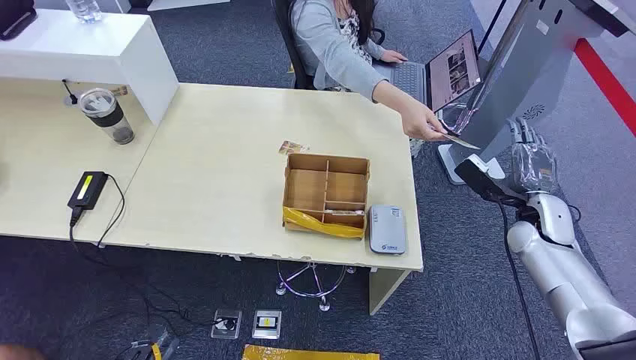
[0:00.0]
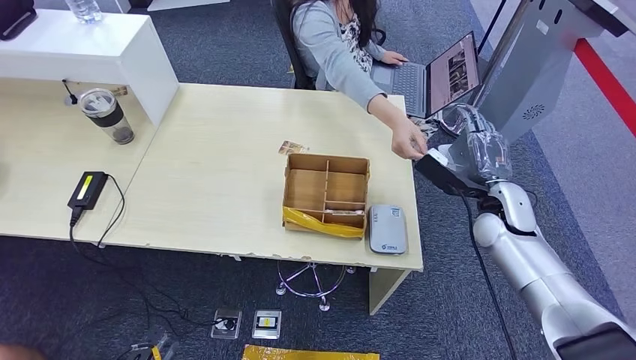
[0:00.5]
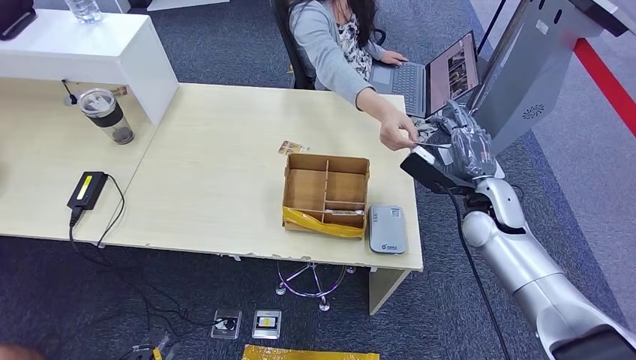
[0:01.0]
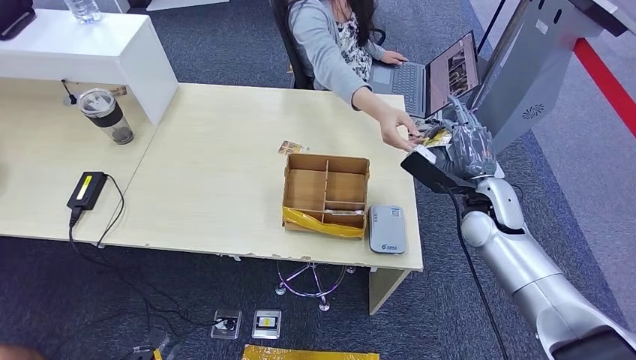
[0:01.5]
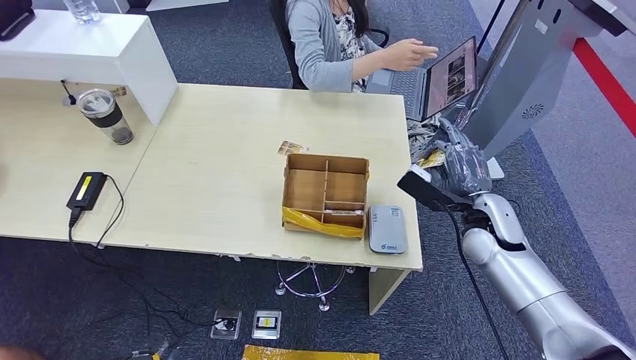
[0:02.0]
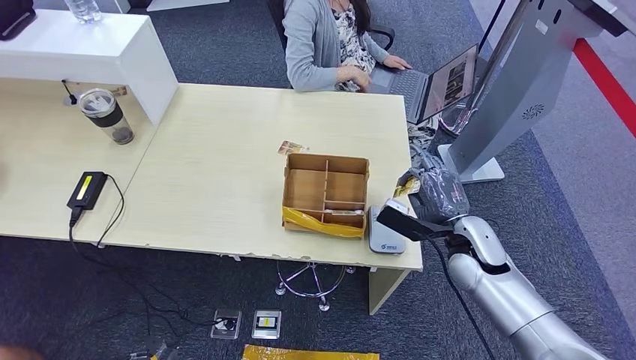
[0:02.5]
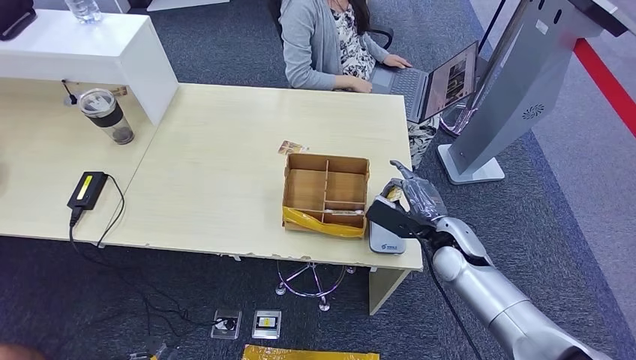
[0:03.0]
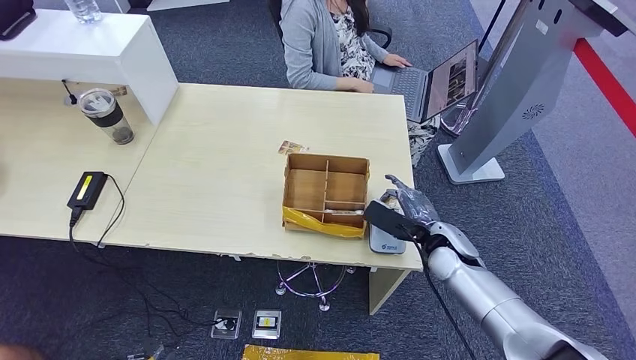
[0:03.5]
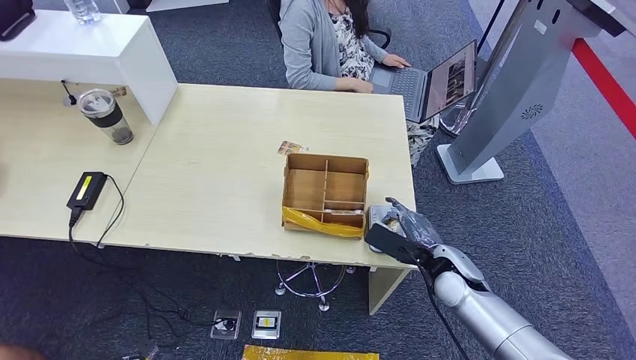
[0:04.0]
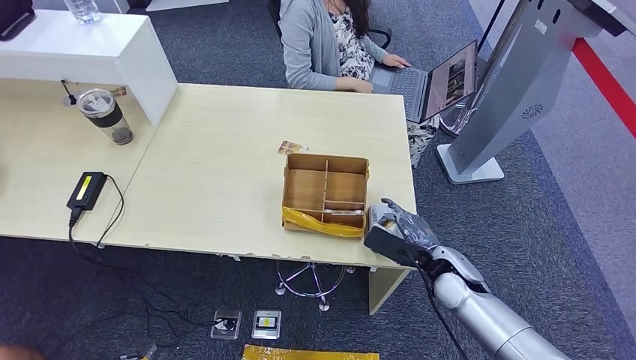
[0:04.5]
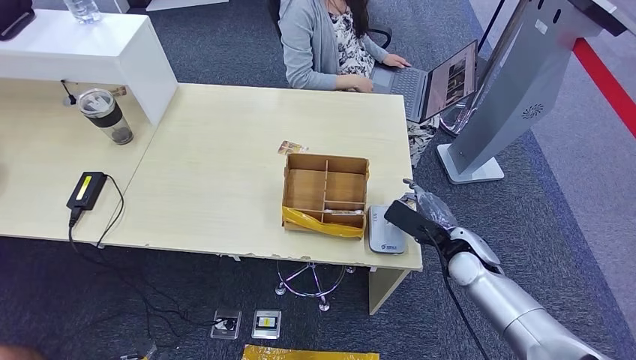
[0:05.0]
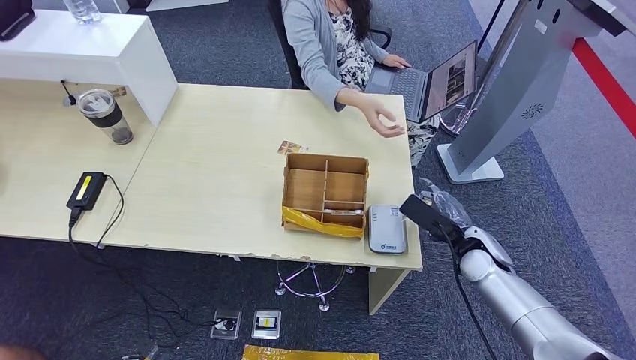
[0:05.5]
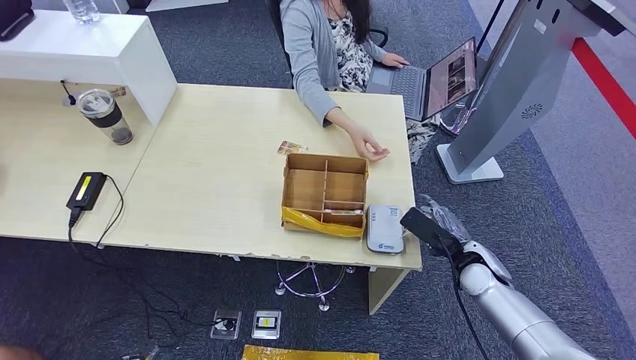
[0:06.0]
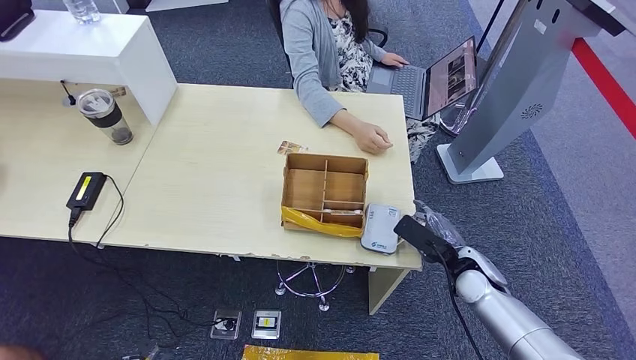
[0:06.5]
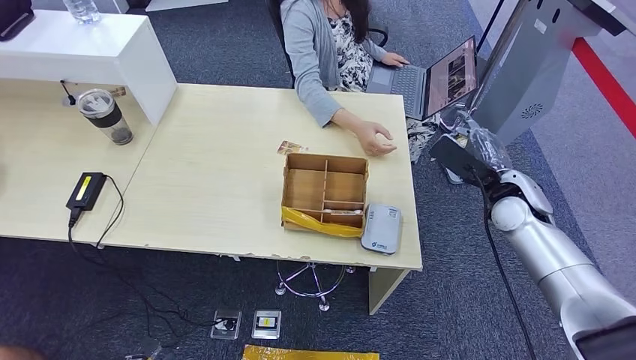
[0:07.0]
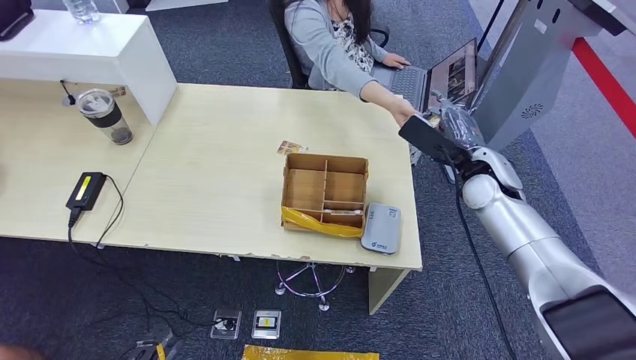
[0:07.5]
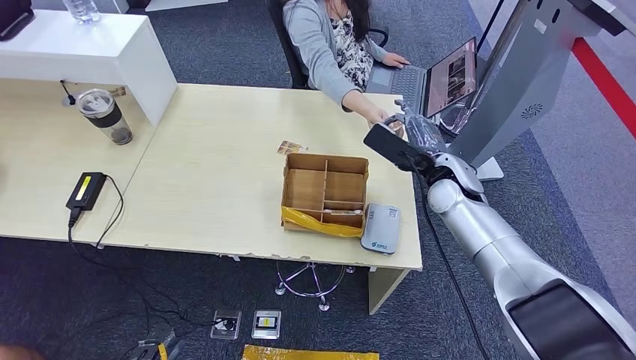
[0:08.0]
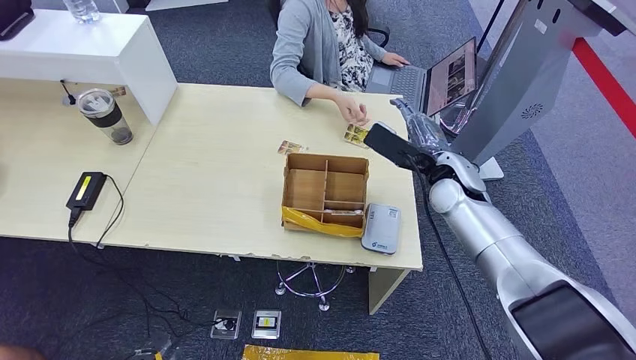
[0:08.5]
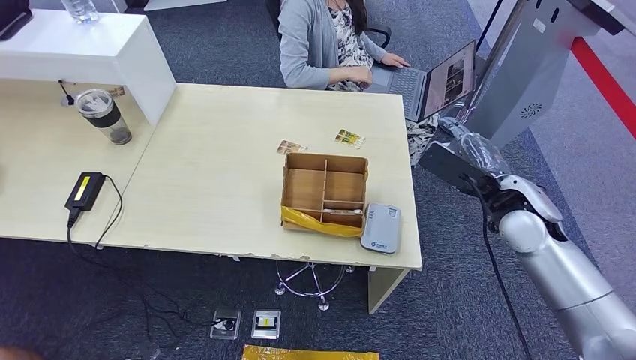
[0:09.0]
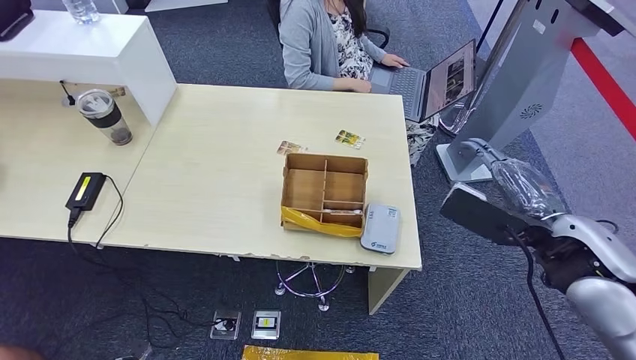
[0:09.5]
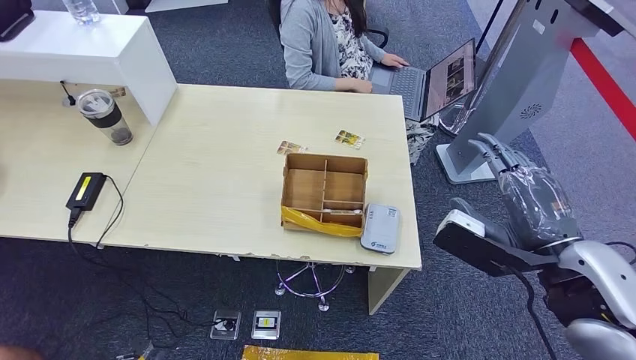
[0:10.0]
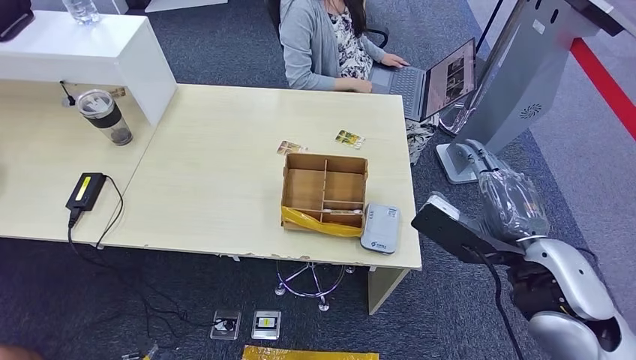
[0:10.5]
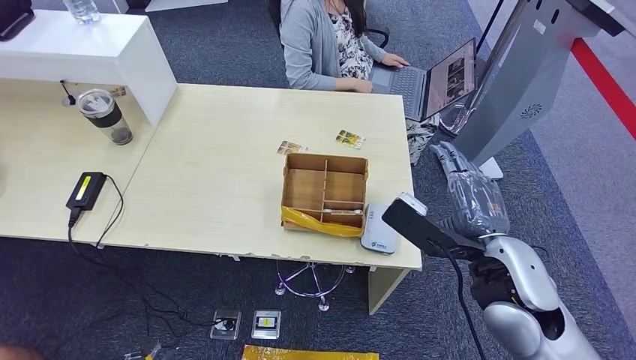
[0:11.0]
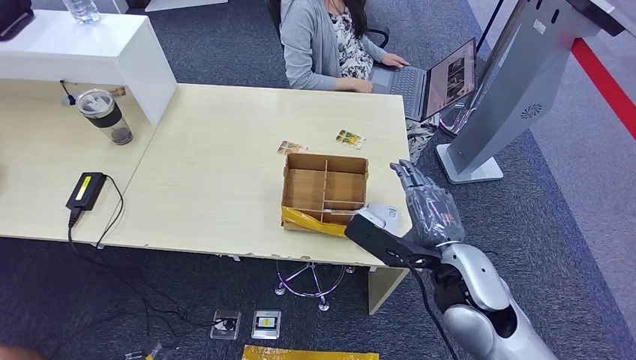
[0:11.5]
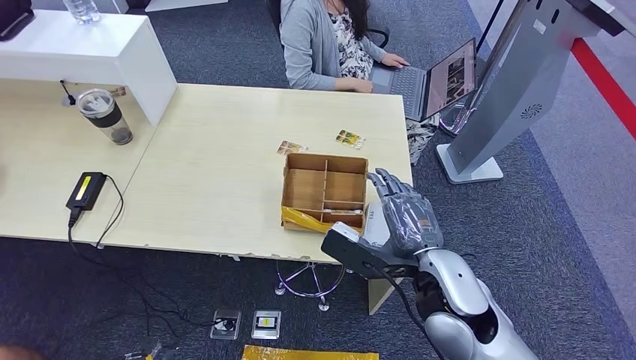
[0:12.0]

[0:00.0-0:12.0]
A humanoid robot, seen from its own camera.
Step, 0:00.0 to 0:01.5: Take the ID card from the person's hand.
Step, 0:02.5 to 0:03.5: Place the ID card on the card reader.
Step, 0:07.0 to 0:08.0: Hand the ID card to the person.
0:02.0 to 0:04.0: The right hand travels downward by about 10 cm.
0:04.0 to 0:06.0: The right hand heads to the right, covering approximately 5 cm.
0:06.0 to 0:08.0: The right hand shifts about 20 cm upward, forward and to the left.
0:08.0 to 0:10.0: The right hand travels backward and upward by about 20 cm.
0:10.0 to 0:12.0: The right hand is displaced to the left and downward by about 15 cm.

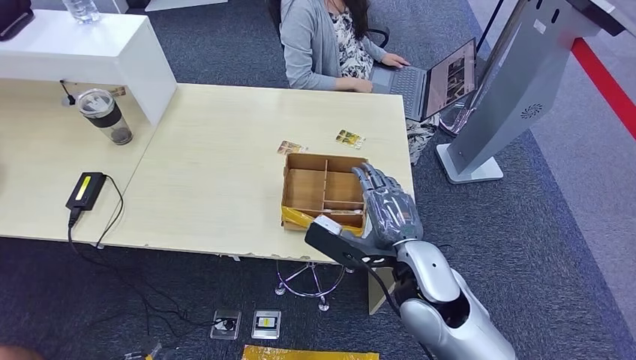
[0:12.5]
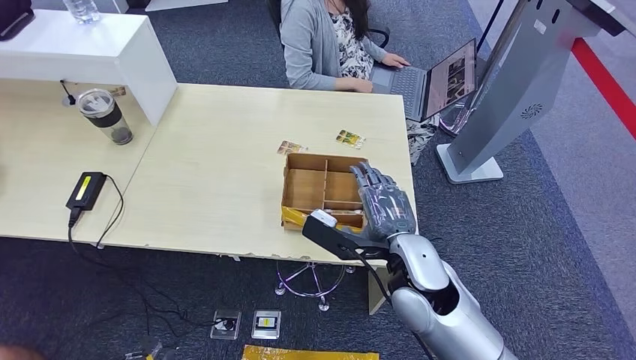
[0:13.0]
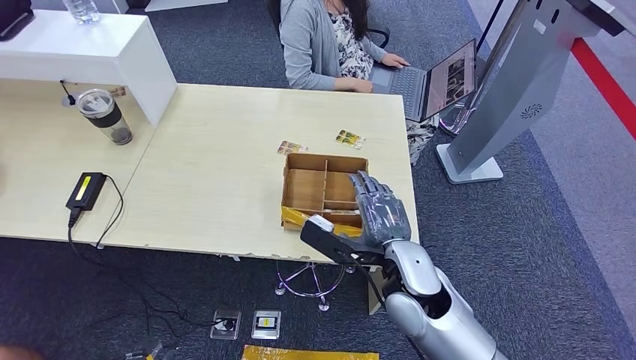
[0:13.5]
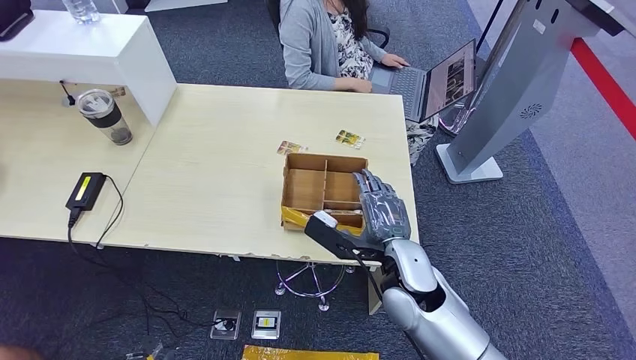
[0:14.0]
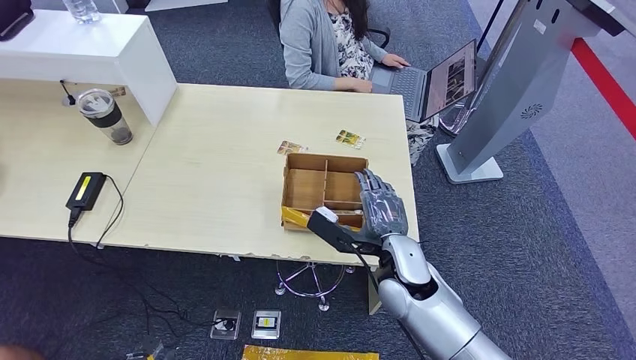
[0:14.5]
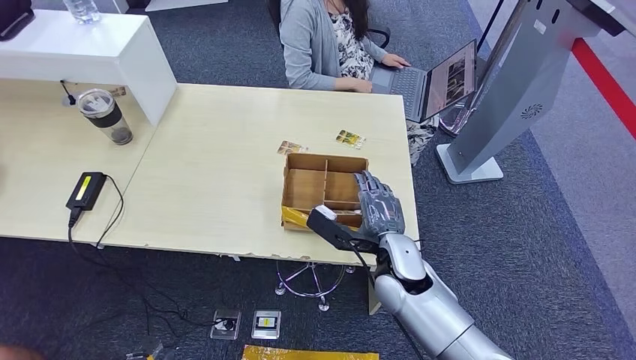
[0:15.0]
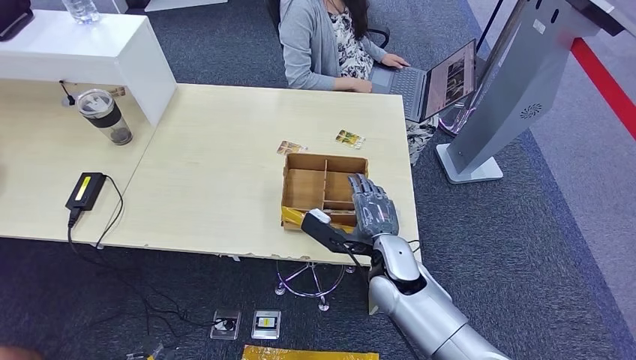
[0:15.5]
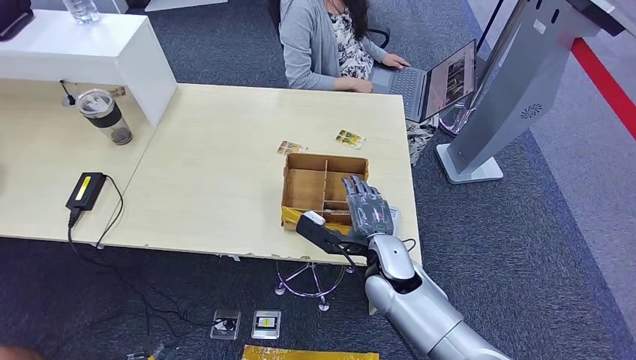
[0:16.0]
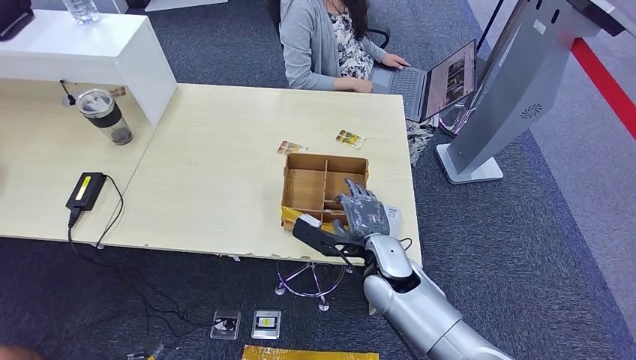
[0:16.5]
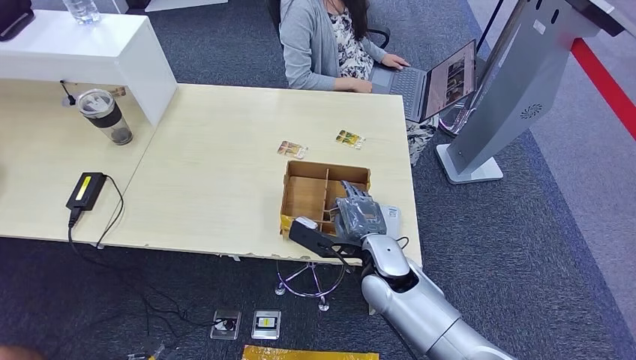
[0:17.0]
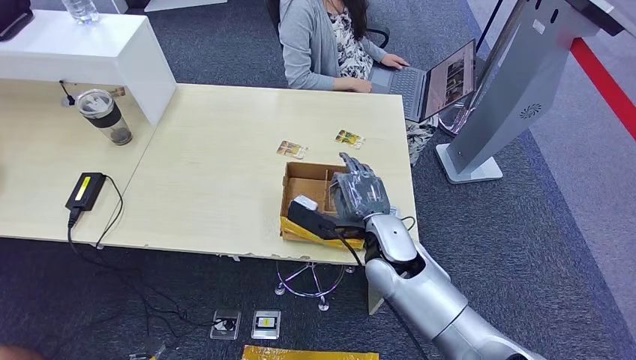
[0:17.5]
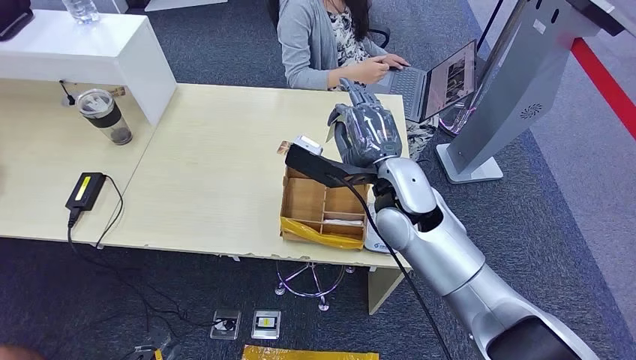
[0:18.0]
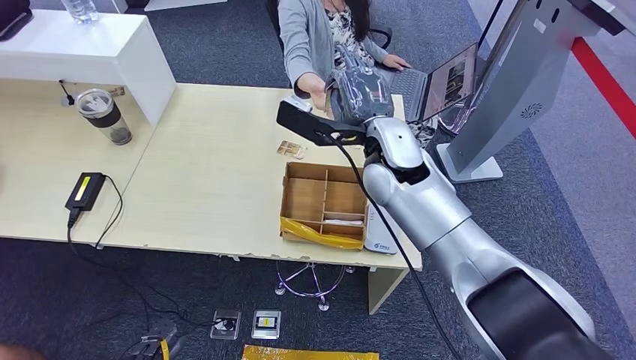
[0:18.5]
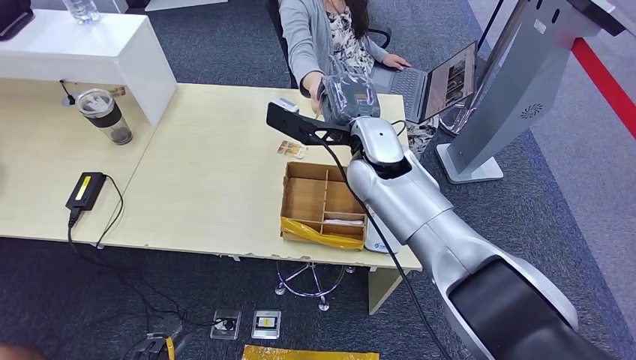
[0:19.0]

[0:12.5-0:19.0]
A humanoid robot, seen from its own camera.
Step, 0:16.5 to 0:17.0: Pick up the room key from the key card box.
Step, 0:18.0 to 0:19.0: Hand the room key to the person.
0:12.5 to 0:14.5: The right hand moves downward, roughly 5 cm.
0:14.5 to 0:17.0: The hands stay close to where they were, moving slightly.
0:17.0 to 0:19.0: The right hand heads upward and forward, covering about 20 cm.
